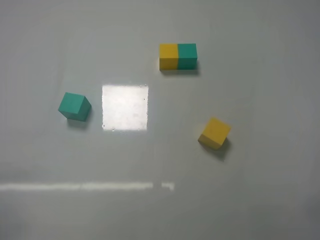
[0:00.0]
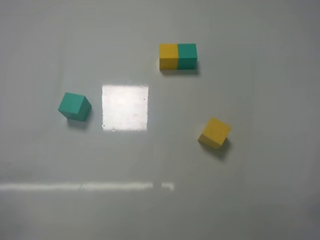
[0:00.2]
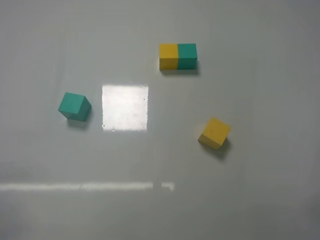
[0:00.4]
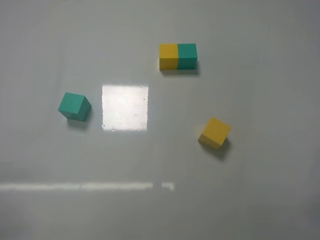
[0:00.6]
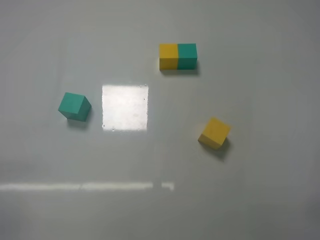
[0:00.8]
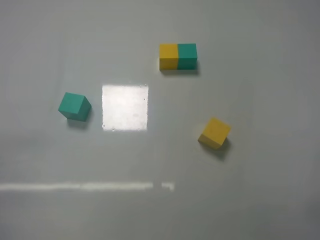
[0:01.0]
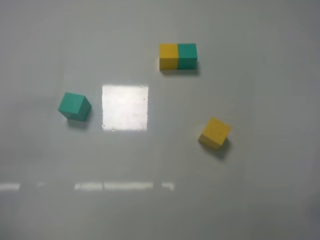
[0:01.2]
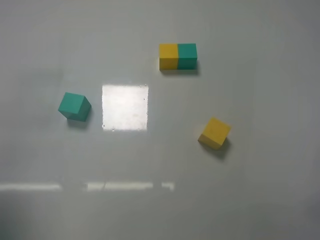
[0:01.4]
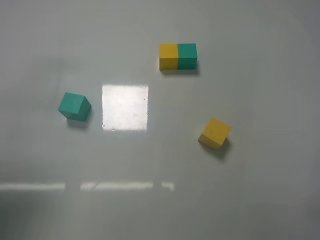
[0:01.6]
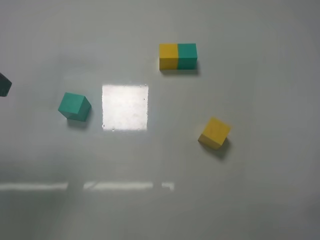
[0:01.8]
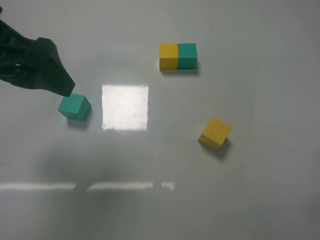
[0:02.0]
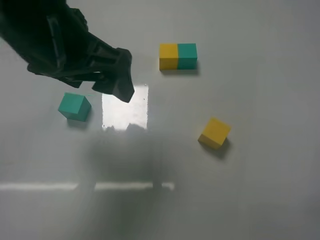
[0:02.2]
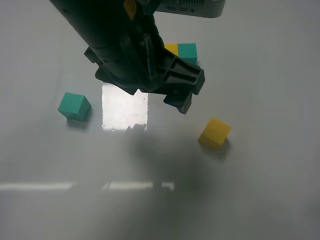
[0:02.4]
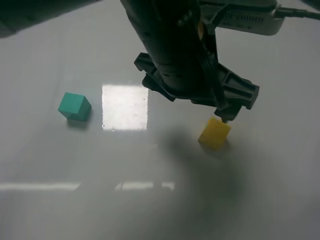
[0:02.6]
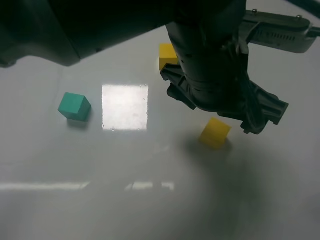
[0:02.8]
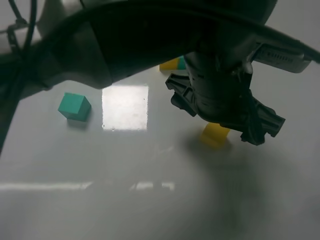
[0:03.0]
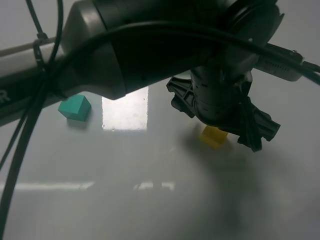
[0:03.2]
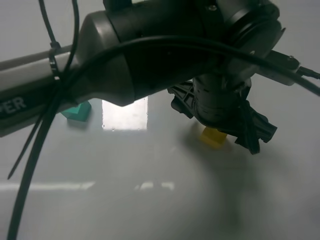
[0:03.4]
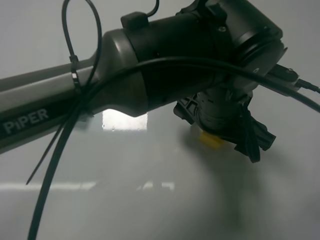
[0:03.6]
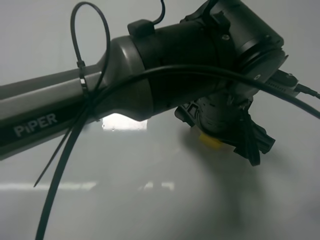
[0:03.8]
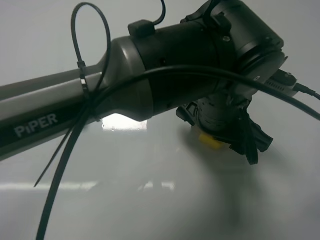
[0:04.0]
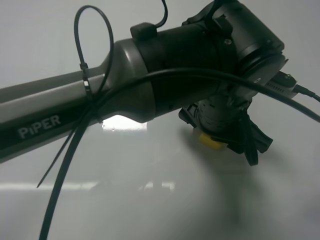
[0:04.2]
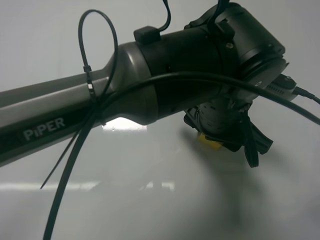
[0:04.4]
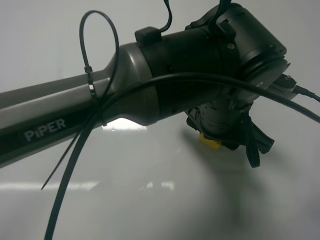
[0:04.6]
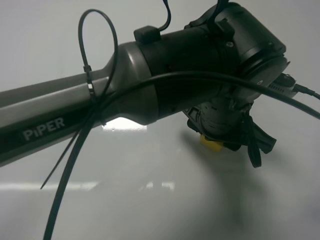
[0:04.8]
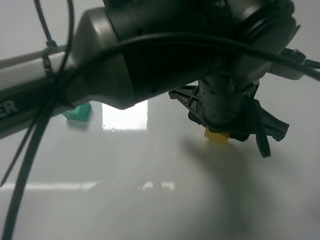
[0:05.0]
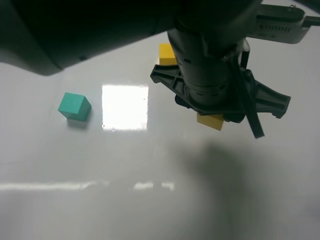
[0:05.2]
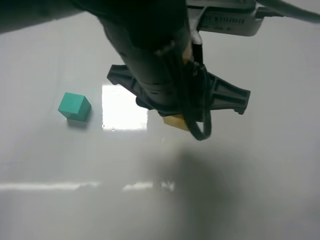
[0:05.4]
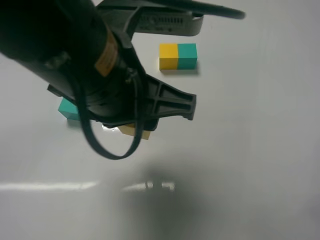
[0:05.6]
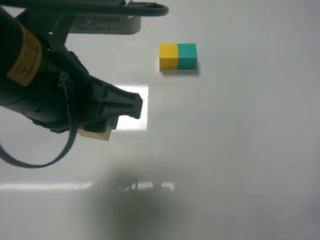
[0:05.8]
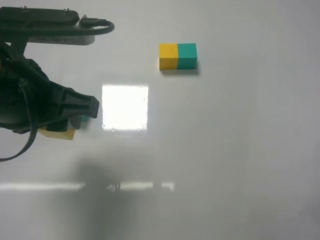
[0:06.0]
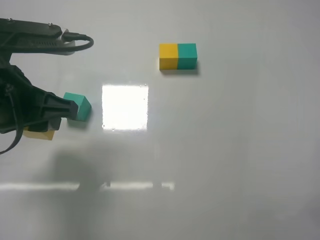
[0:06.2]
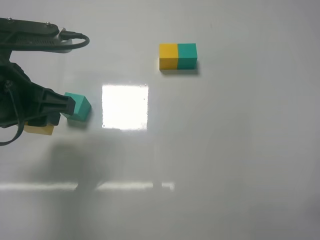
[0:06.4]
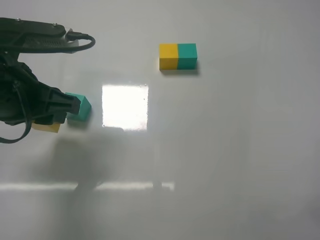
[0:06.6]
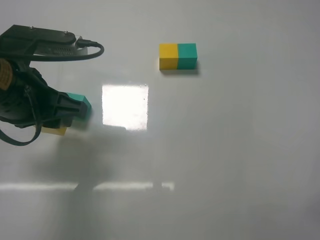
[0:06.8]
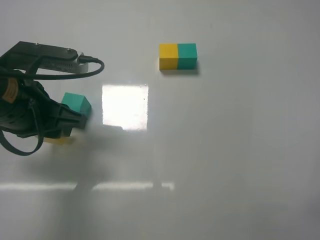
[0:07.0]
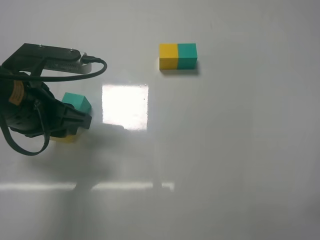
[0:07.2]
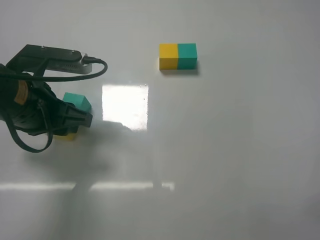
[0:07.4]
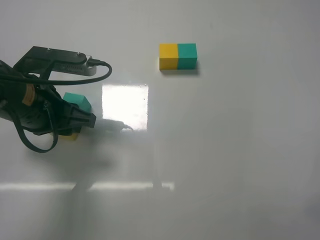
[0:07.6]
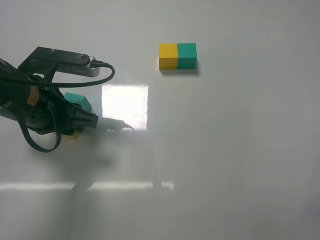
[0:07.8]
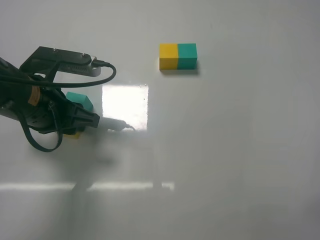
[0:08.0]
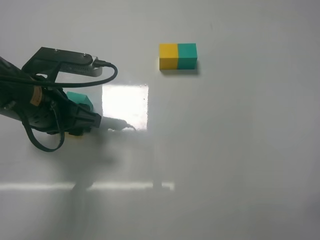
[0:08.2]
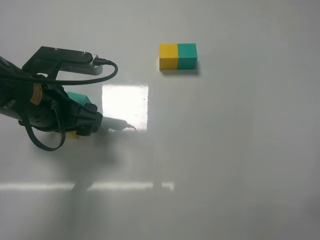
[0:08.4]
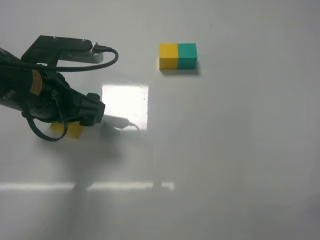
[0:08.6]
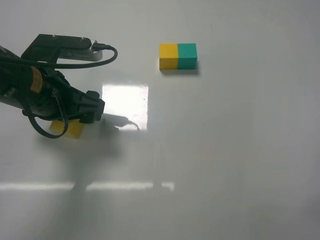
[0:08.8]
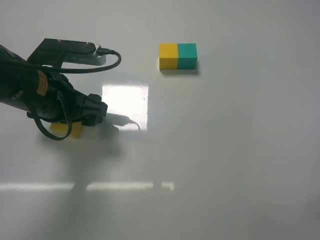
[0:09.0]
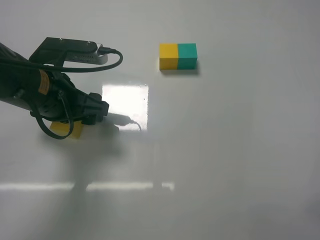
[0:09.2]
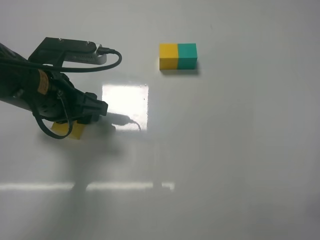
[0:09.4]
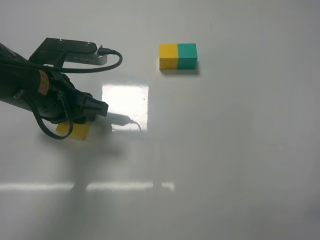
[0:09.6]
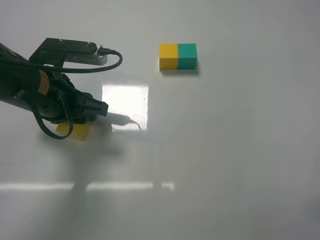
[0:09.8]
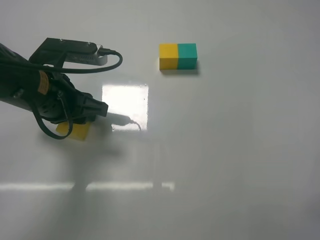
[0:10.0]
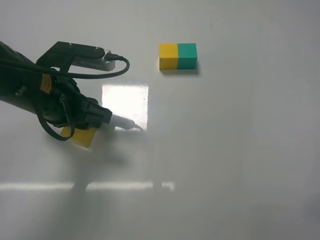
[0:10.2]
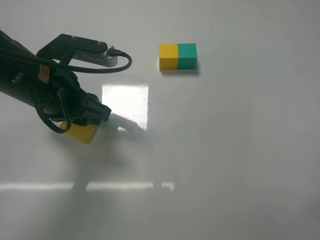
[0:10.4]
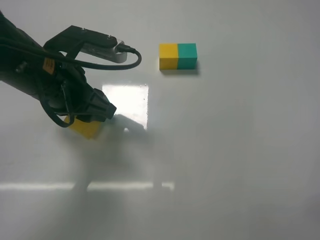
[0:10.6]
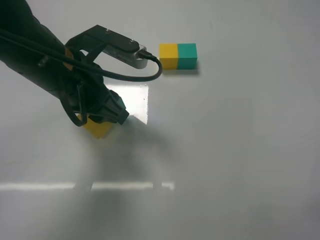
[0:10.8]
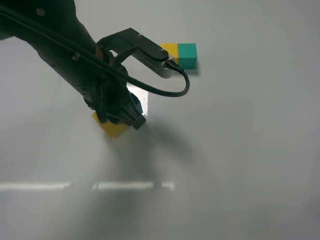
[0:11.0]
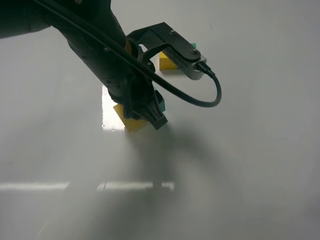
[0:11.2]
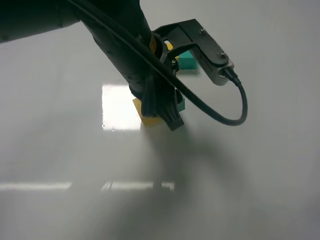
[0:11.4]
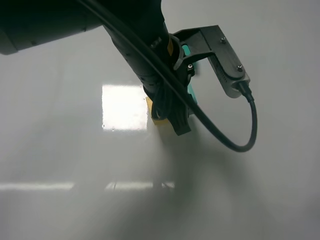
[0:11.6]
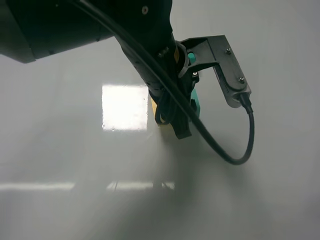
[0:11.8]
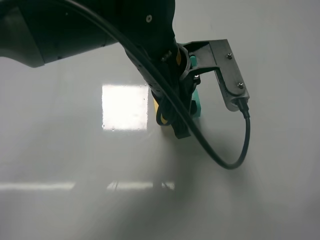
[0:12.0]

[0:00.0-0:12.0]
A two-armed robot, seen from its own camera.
Task of the whole recording: According to the building block template in front, assemble the scattered blocks together.
Step, 0:00.0 to 0:04.4: Grasp the yellow block with left gripper.
Step, 0:04.6 to 0:08.6: Put the yellow cube on the behind of the green cube with the left gripper.
0:00.0 to 0:01.6: The left gripper goes roughly 25 cm upward and forward.
0:01.6 to 0:03.0: The left gripper is displaced to the right by roughly 35 cm.
0:03.0 to 0:04.4: The left gripper closes its fingers.
0:04.4 to 0:06.0: The left gripper goes about 25 cm to the left.
0:06.0 to 0:07.6: The left gripper heads forward and downward, covering about 10 cm.
0:07.6 to 0:09.0: The left gripper opens up.
0:09.0 to 0:10.4: The left gripper closes.
0:10.4 to 0:12.0: The left gripper shifts roughly 15 cm to the right.

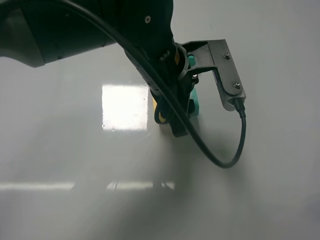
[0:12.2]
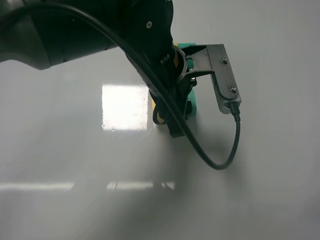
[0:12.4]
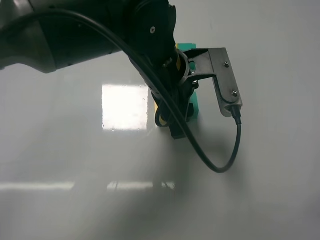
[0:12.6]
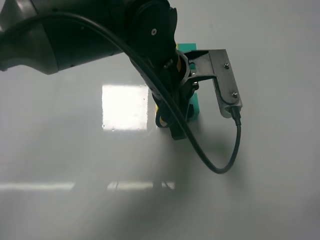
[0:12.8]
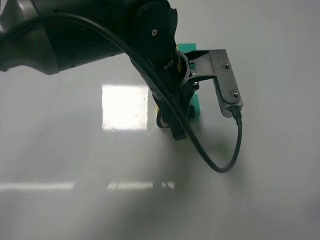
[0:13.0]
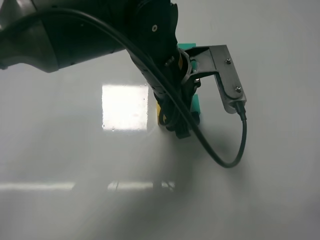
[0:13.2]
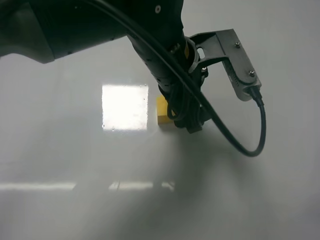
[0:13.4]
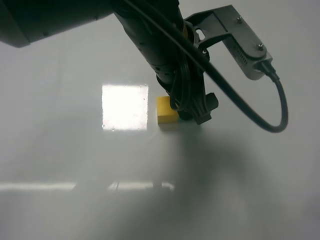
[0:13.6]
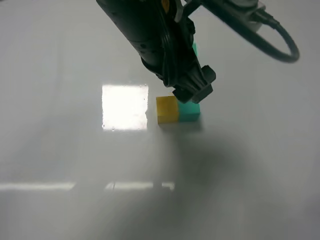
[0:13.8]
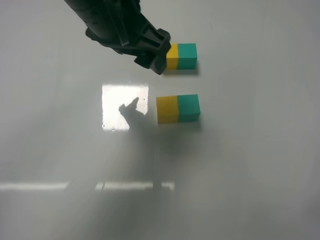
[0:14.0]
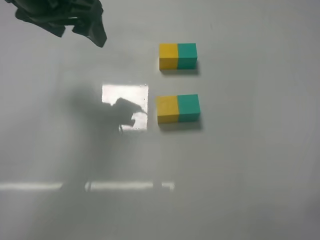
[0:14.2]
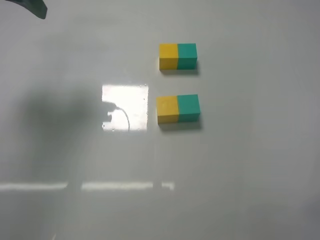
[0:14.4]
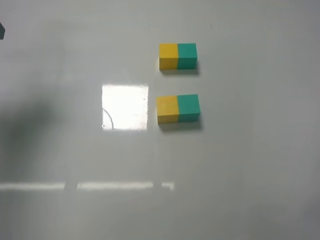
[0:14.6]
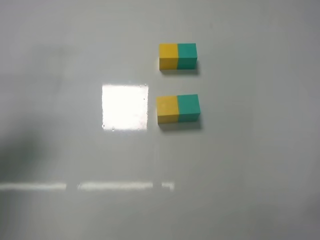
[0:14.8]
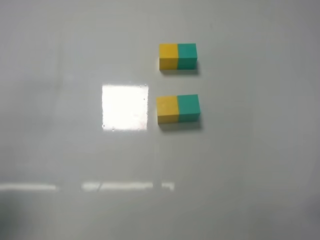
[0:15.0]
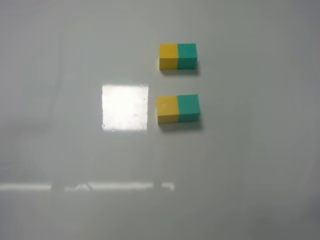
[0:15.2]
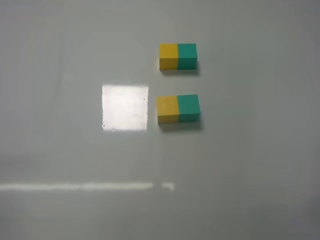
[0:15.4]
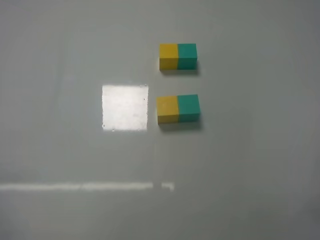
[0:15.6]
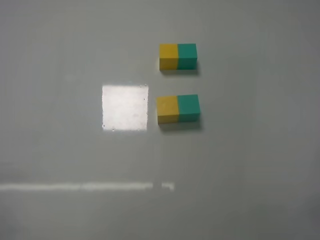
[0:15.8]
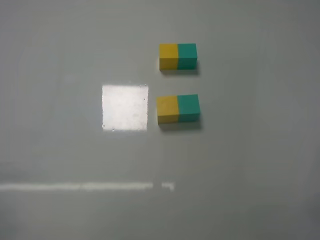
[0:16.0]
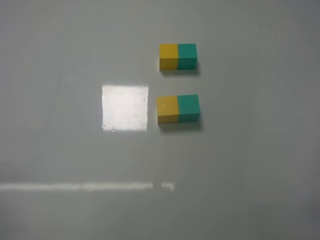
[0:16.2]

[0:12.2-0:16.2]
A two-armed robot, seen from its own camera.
Task of the whole recording: According to the building block template in front, assemble the scattered blocks together.
0:12.2 to 0:13.6: The left gripper opens.
0:13.6 to 0:14.8: The left gripper is displaced to the left by approximately 30 cm.
0:14.8 to 0:16.2: The left gripper heads backward and downward, covering about 25 cm.
